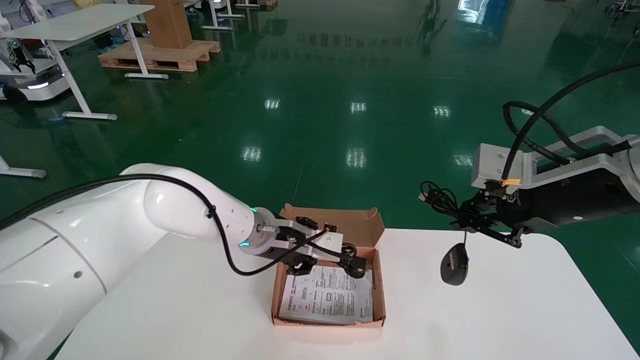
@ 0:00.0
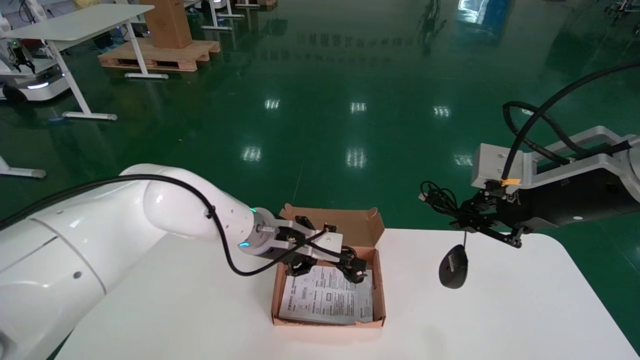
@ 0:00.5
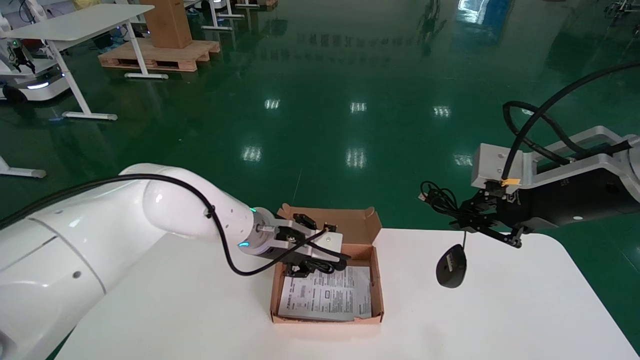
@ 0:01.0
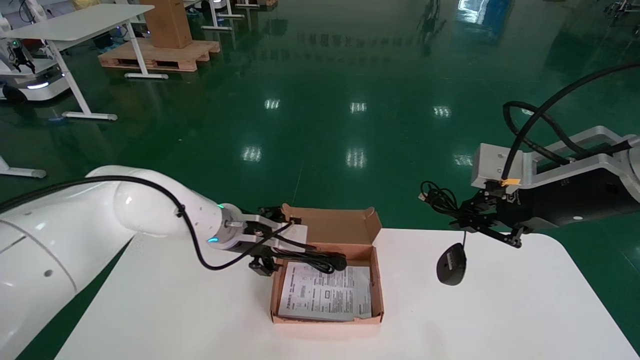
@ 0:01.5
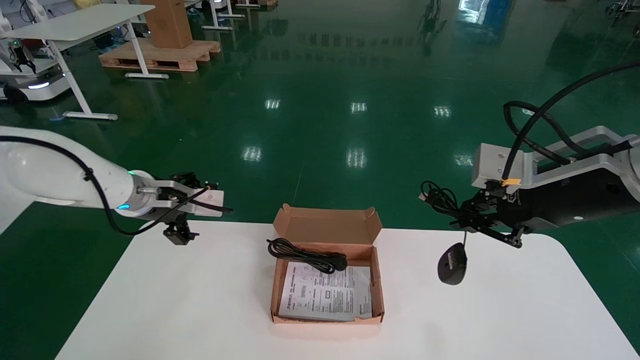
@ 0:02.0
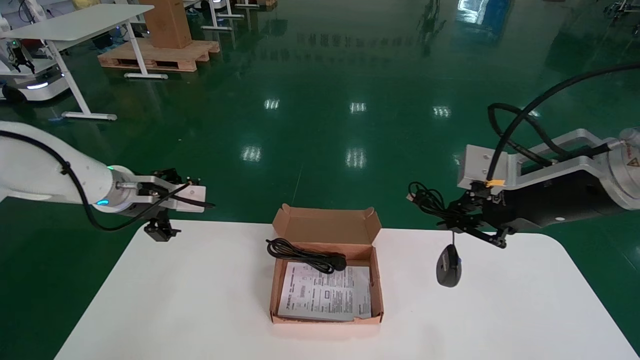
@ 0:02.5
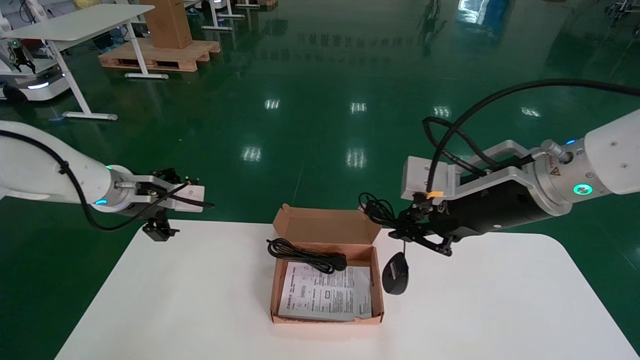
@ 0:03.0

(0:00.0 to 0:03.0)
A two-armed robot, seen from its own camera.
Step, 0:00.0 - 0:03.0: Place the mouse and power cord into the box.
0:00.0 - 0:01.5: There are only small adjustments of the grippers.
0:01.5 - 0:03.0: The left gripper is displaced to the left by about 20 cm, and opens up.
